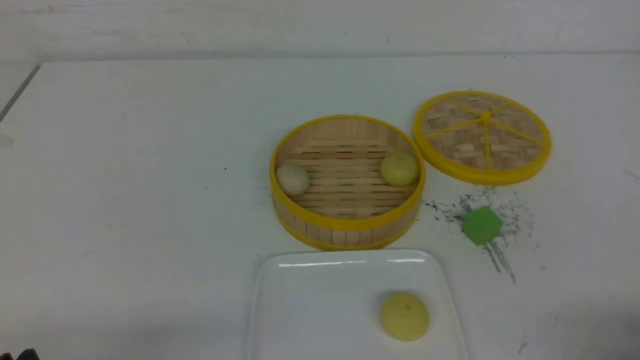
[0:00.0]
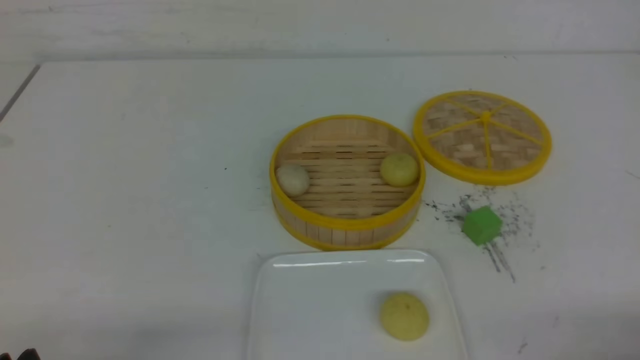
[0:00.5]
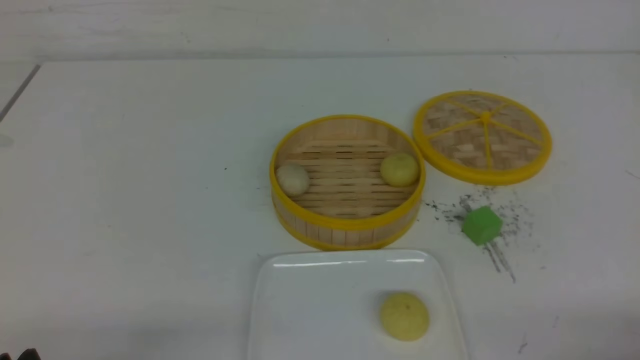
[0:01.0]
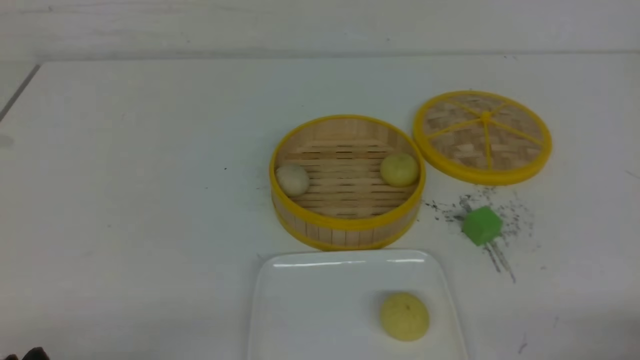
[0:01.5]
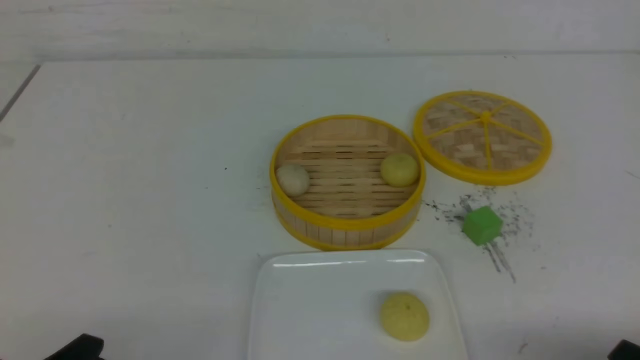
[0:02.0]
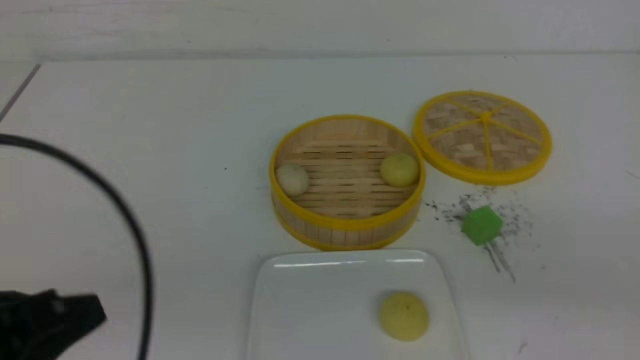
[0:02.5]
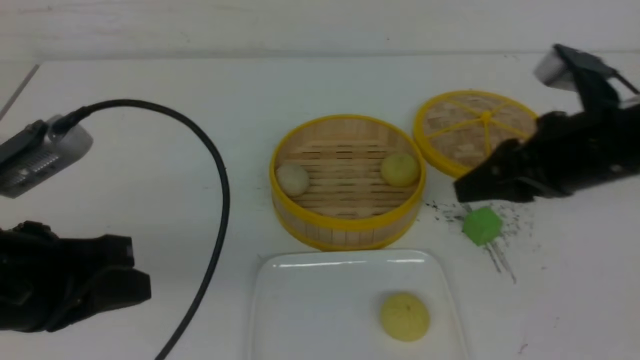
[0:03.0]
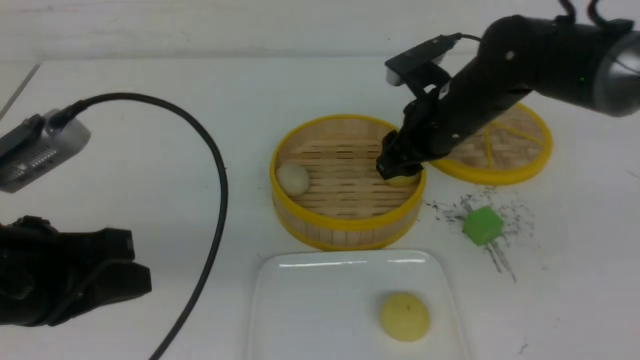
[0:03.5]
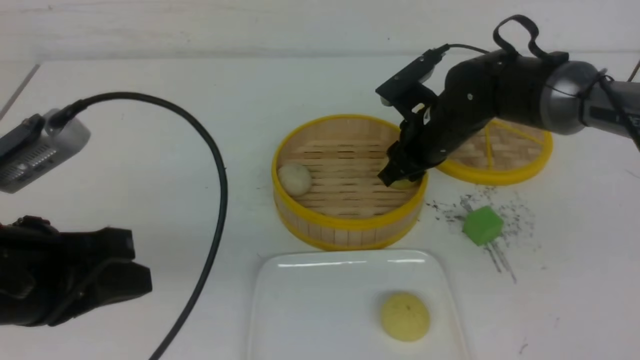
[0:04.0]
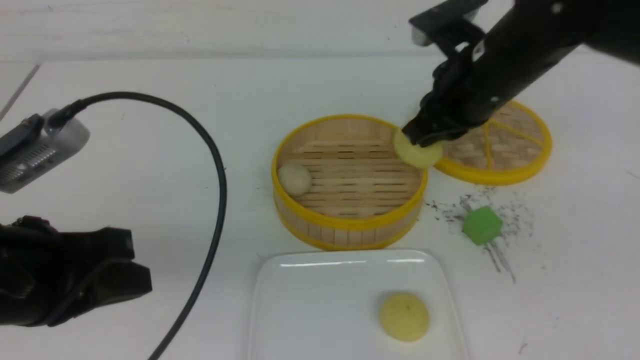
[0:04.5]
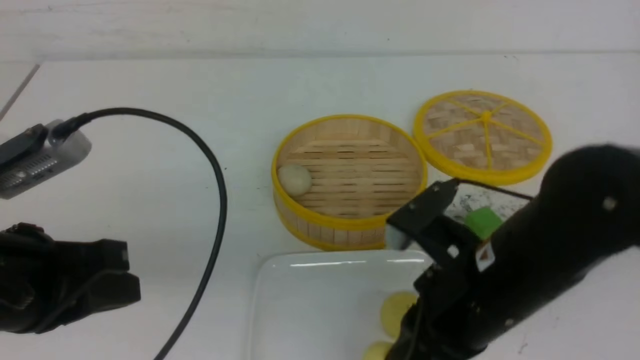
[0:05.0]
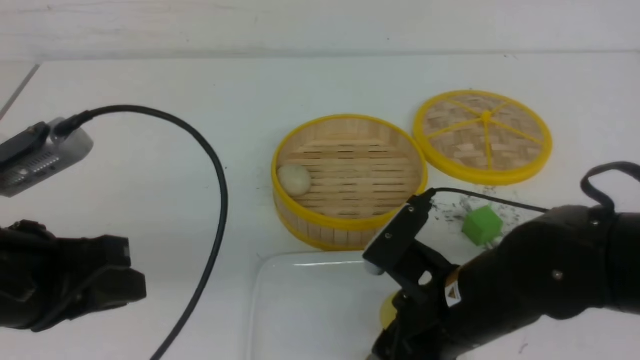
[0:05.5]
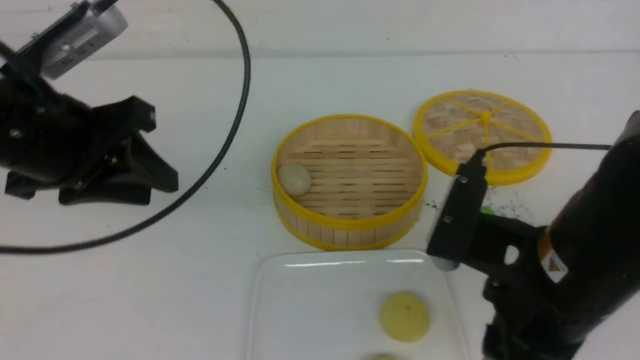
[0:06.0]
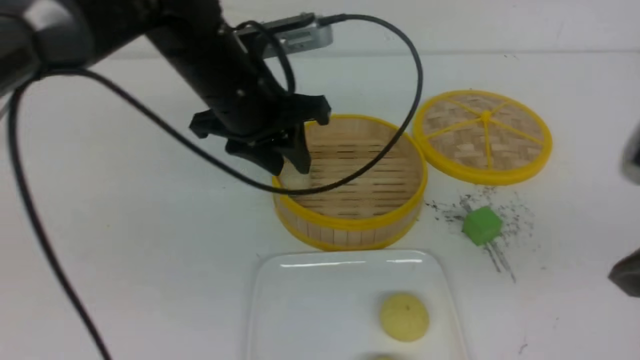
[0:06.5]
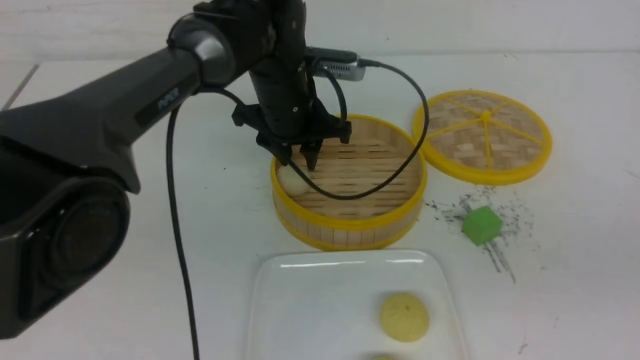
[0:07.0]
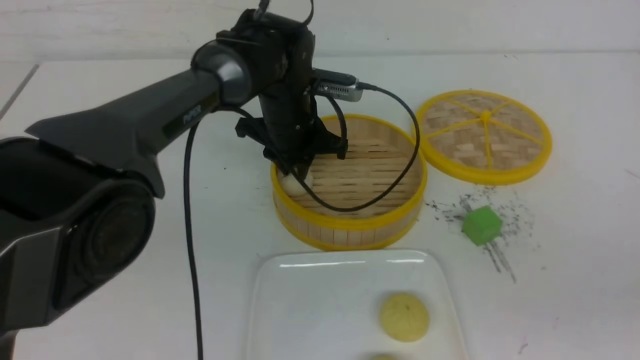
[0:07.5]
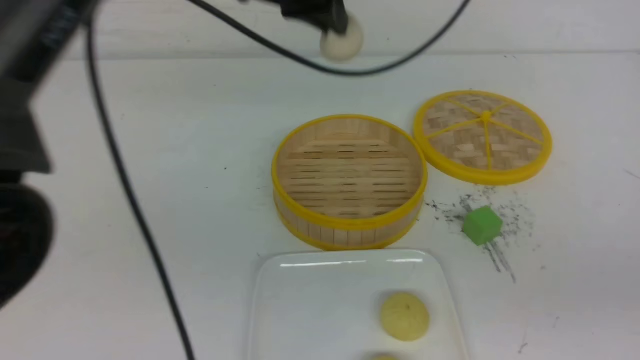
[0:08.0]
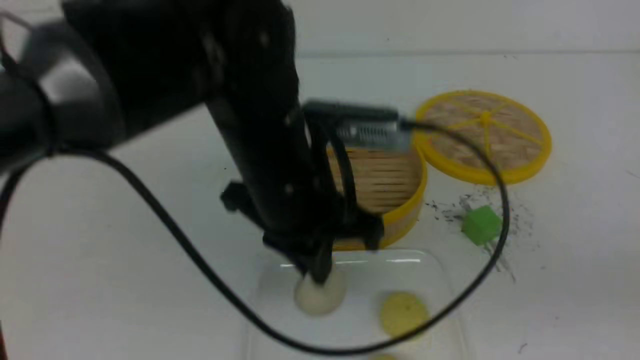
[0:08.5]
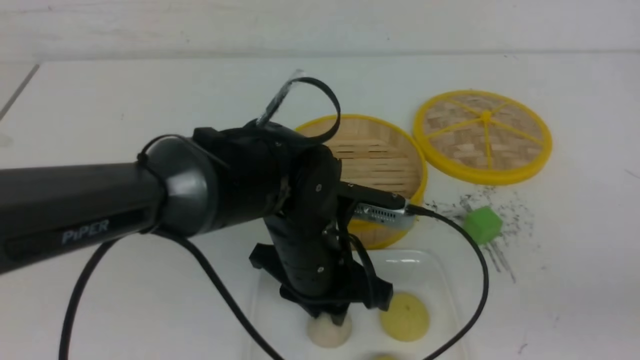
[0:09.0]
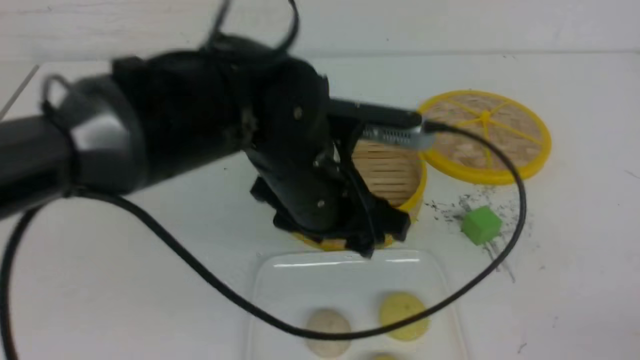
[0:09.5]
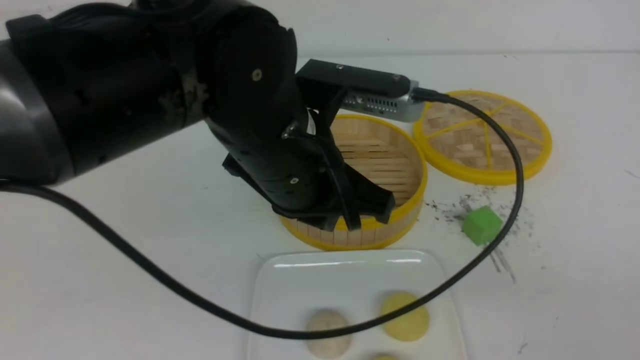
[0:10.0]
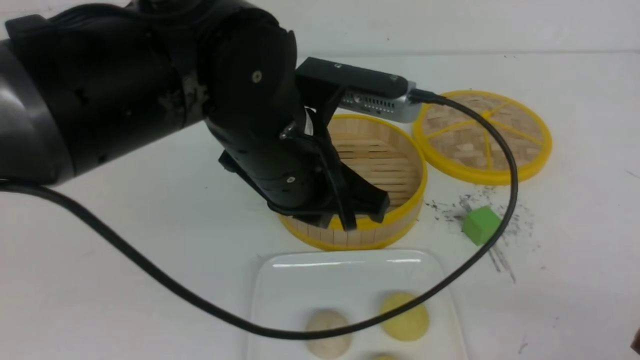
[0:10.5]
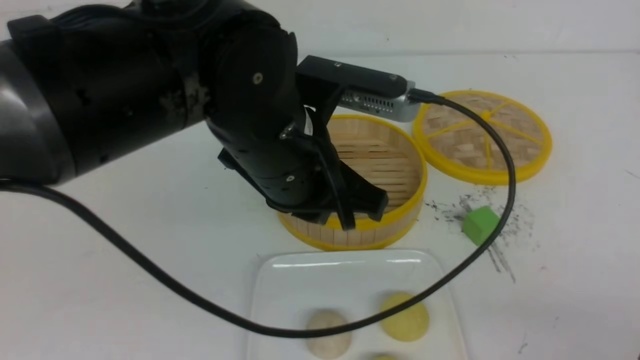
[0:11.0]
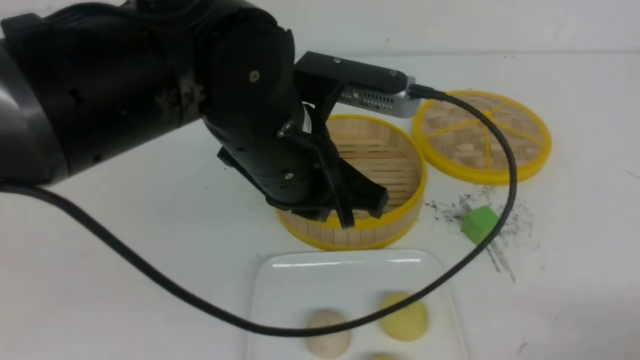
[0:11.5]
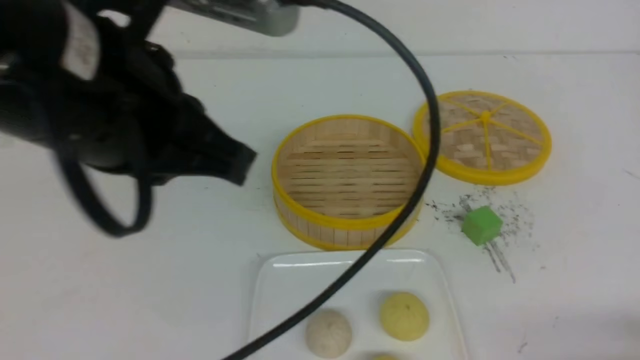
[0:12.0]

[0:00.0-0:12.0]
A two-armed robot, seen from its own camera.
Step, 0:00.0 to 0:04.0: use the right arm to grab the steamed stuffed bun that is closest to it.
Step, 0:04.5 to 0:05.5: use the right arm to put the steamed stuffed bun into the plate.
Step, 0:06.0 to 0:07.5: use the left arm to grab the steamed stuffed bun that is closest to it.
Step, 0:08.0 to 0:09.0: use the left arm to put the steamed stuffed bun into the plate.
0:02.0 to 0:04.0: The right gripper goes some 40 cm forward and to the left, and closes, then reopens. The left gripper shifts some 15 cm forward and upward, and closes its fingers.
0:04.0 to 0:06.0: The right gripper goes some 25 cm backward, and closes, then opens again. The left gripper heads forward, covering approximately 10 cm, and opens up.
0:06.0 to 0:08.0: The right gripper moves to the right, backward and upward, about 15 cm, and closes, while the left gripper goes about 20 cm to the right and forward, and closes its fingers.
0:08.0 to 0:10.0: The right gripper shifts roughly 10 cm downward; the left gripper is displaced backward and downward by some 15 cm, and opens and closes again.
0:10.0 to 0:12.0: The left gripper heads upward, to the left and backward, covering about 15 cm, while the right gripper shifts about 10 cm downward.

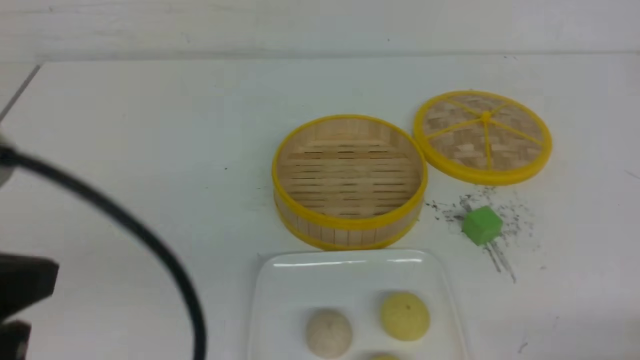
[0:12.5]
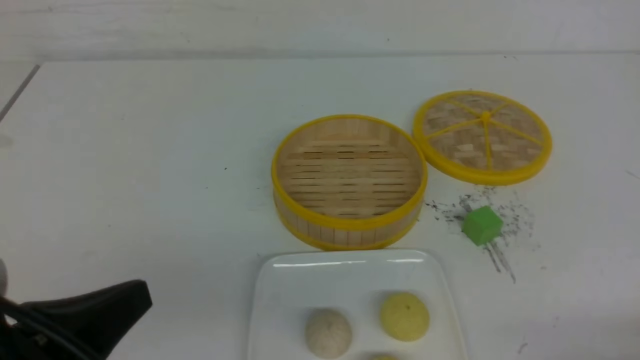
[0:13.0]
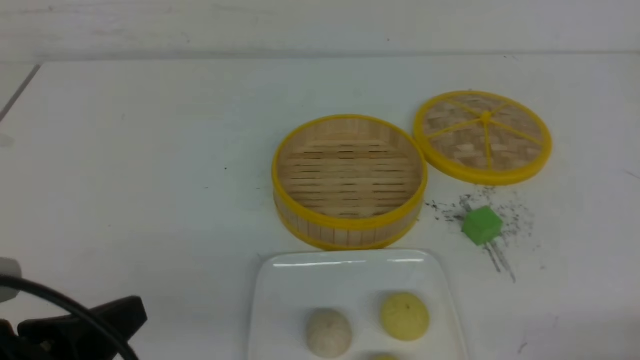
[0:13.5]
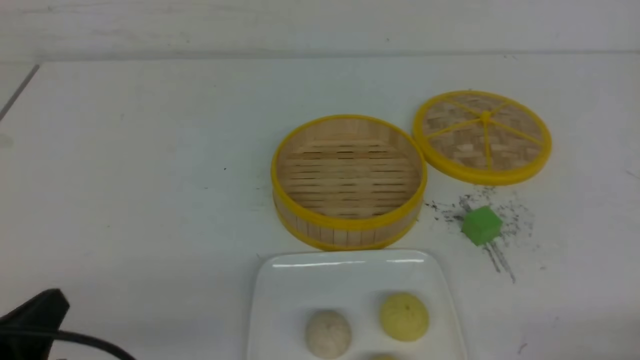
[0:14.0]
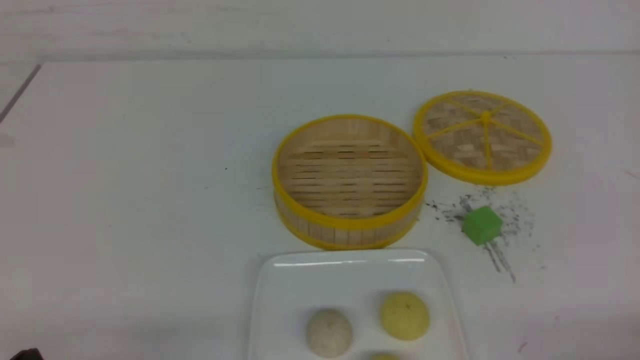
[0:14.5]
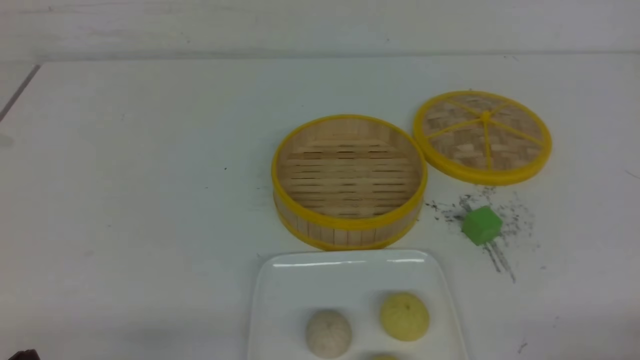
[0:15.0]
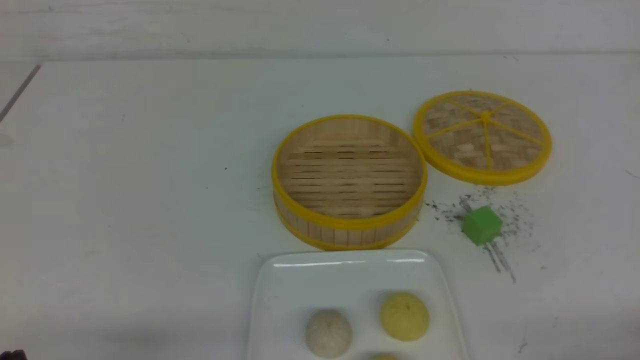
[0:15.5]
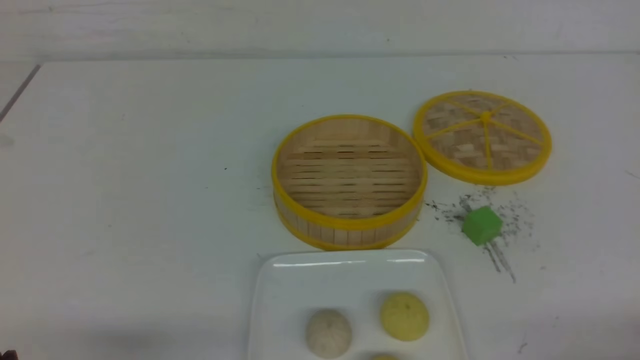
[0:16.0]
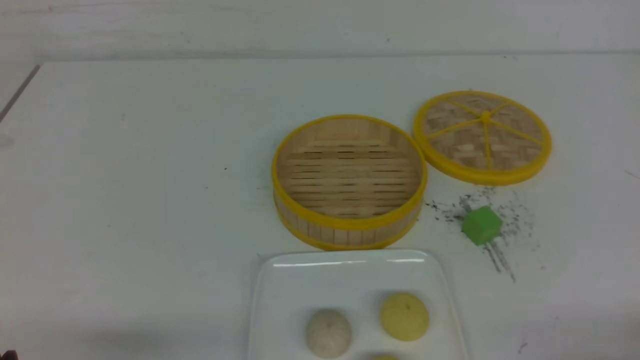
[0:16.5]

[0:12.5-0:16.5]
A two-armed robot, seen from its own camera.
0:12.5 to 0:14.5: The left gripper goes approximately 20 cm downward.

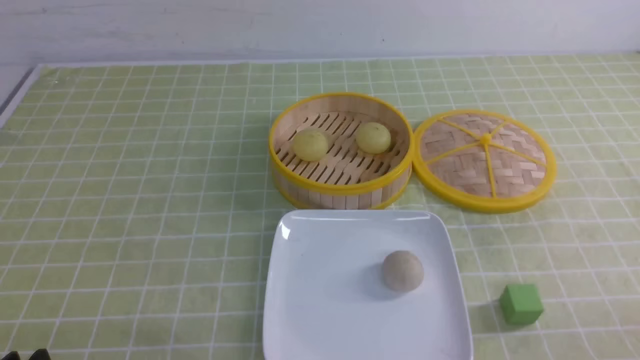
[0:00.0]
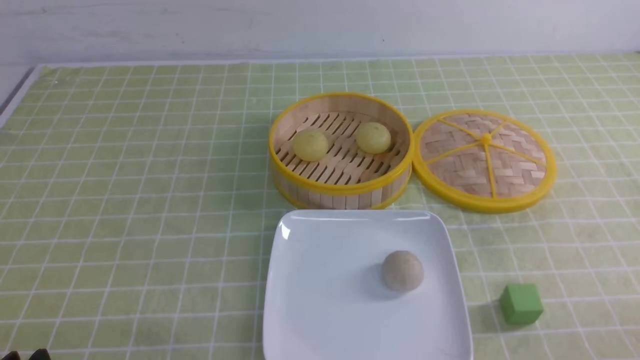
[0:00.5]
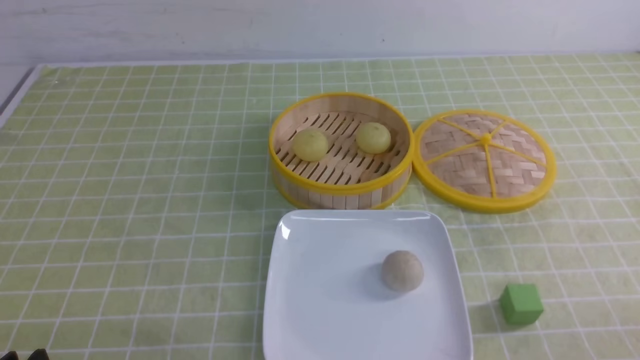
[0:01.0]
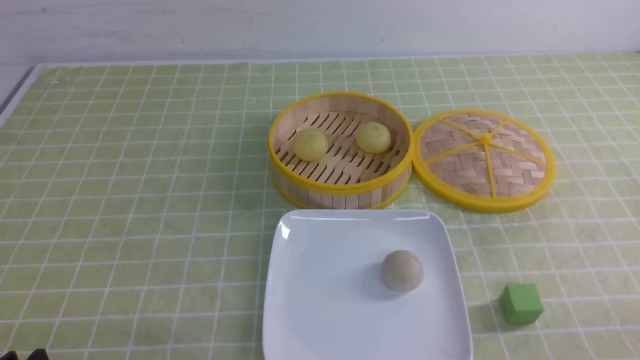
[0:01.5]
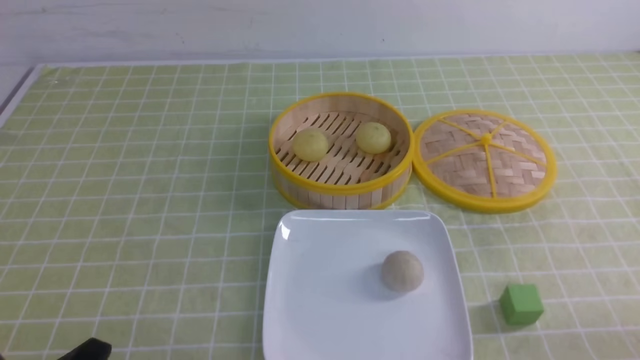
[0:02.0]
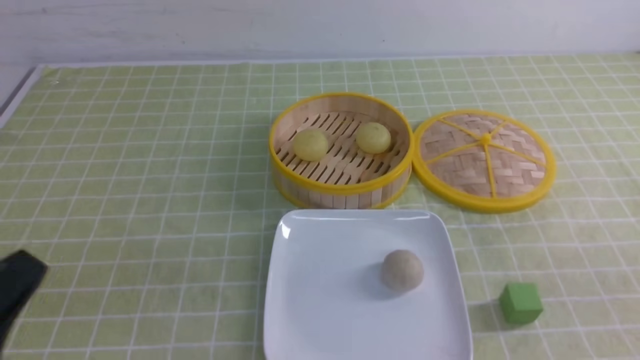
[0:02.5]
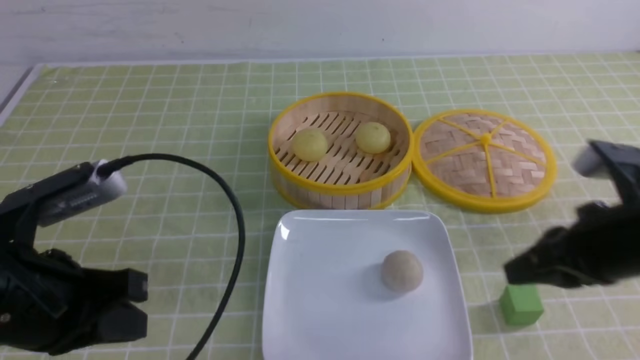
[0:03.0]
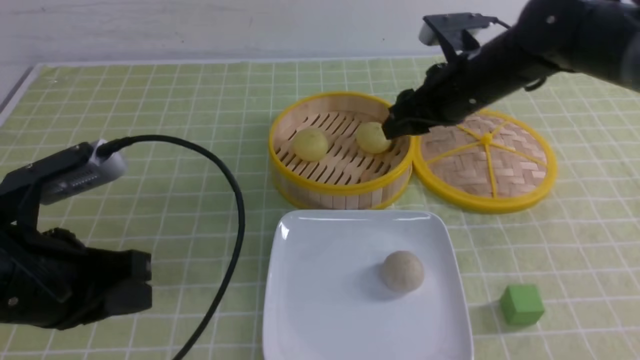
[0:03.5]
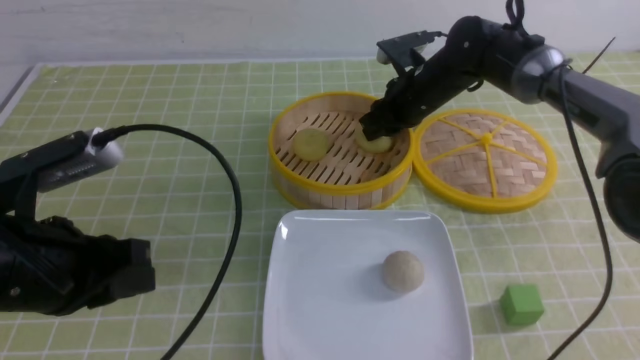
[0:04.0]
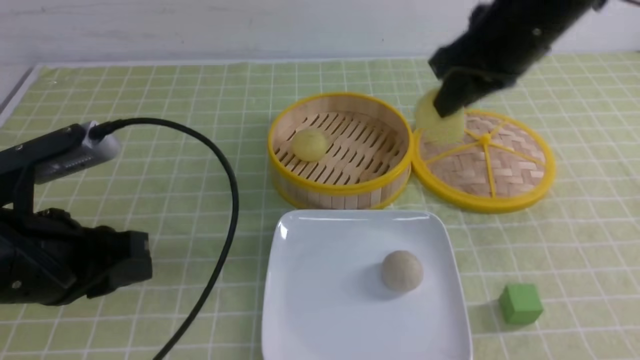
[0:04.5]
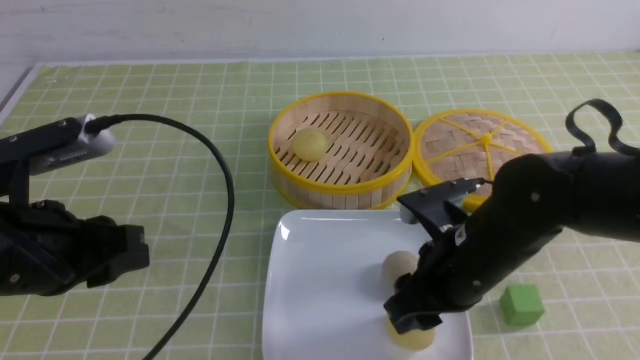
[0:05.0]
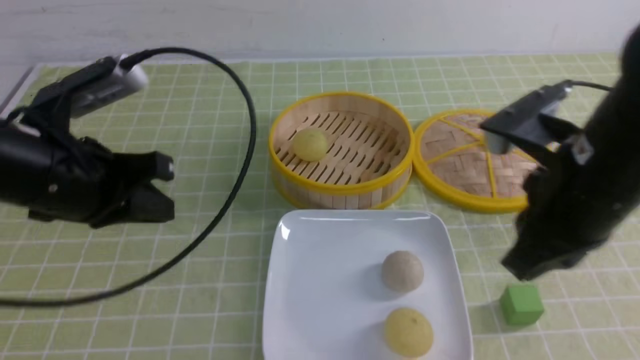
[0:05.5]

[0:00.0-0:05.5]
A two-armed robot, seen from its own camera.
Step, 0:00.0 to 0:04.0: use the right arm to grab the steamed stuffed bun that is closest to it.
Step, 0:04.5 to 0:05.0: use the right arm to put the steamed stuffed bun into the plate.
0:02.0 to 0:03.5: The left gripper is displaced forward and upward by some 15 cm. The right gripper travels forward and to the left by about 40 cm, and closes, then opens again.
0:03.5 to 0:05.5: The left gripper travels forward by some 10 cm, and opens, then closes again. The right gripper shifts approximately 20 cm backward, and closes its fingers.
